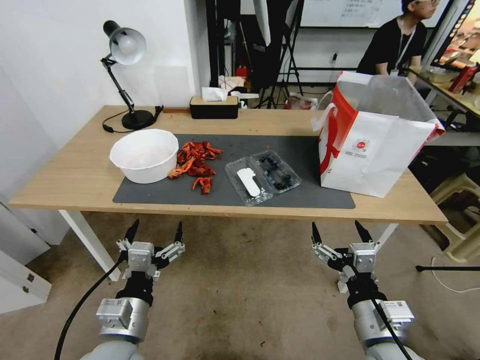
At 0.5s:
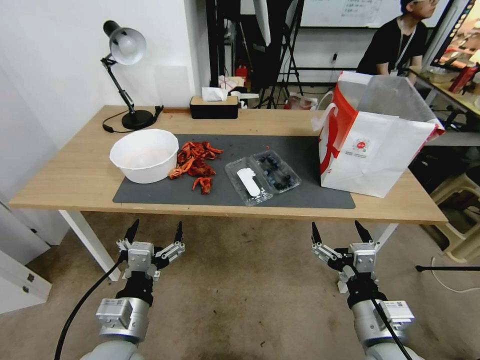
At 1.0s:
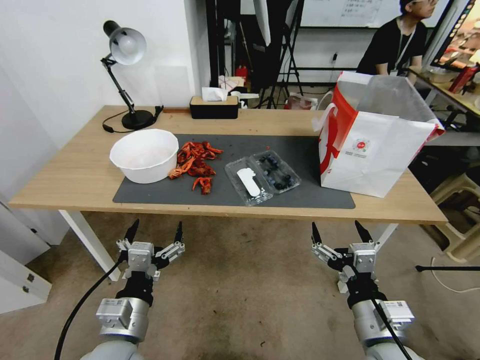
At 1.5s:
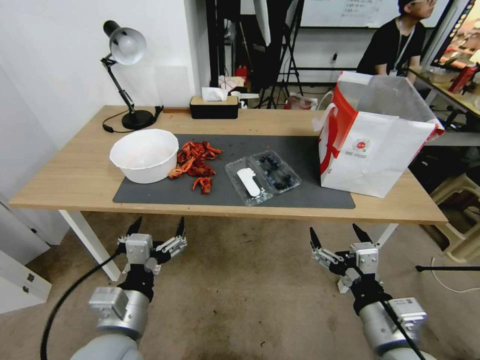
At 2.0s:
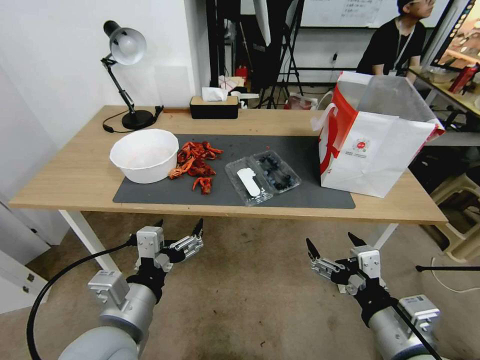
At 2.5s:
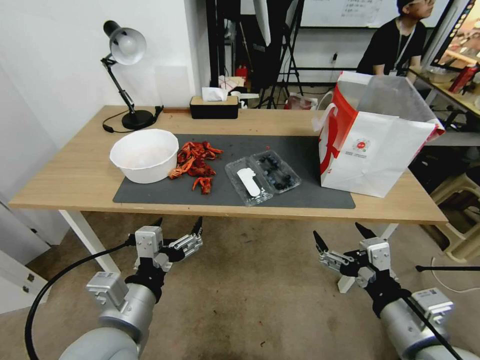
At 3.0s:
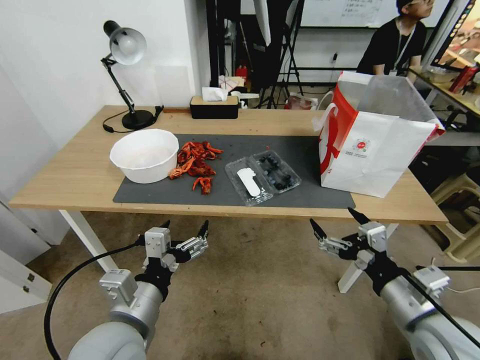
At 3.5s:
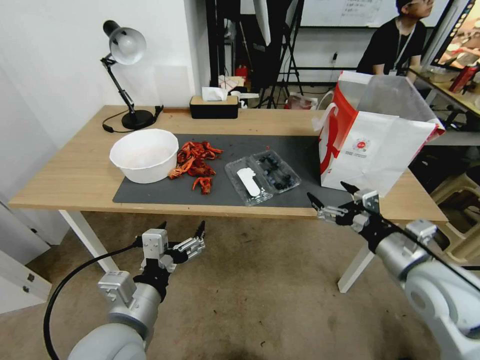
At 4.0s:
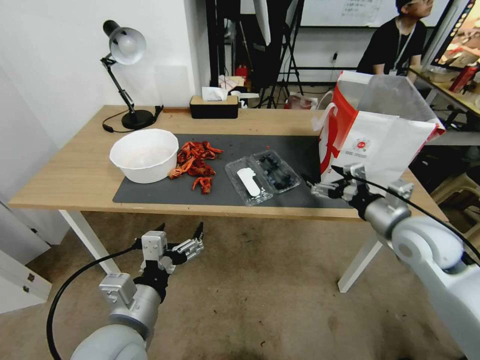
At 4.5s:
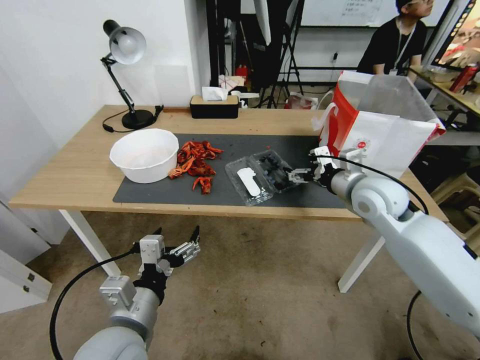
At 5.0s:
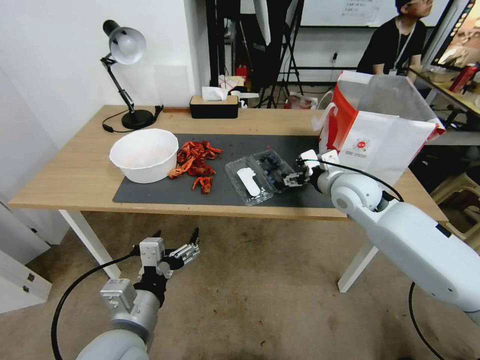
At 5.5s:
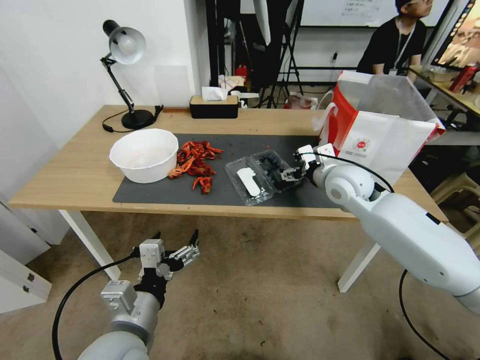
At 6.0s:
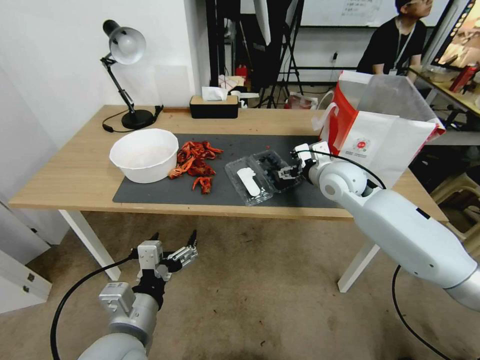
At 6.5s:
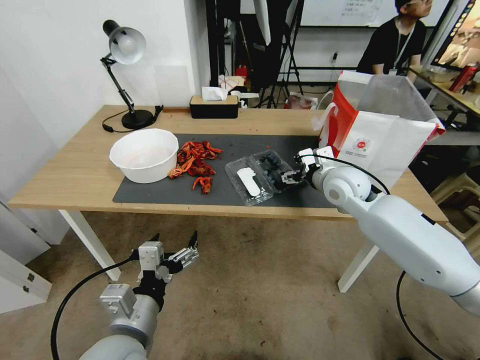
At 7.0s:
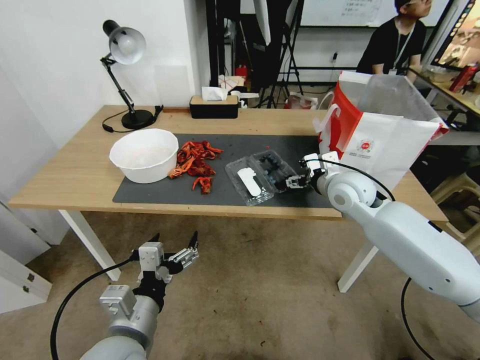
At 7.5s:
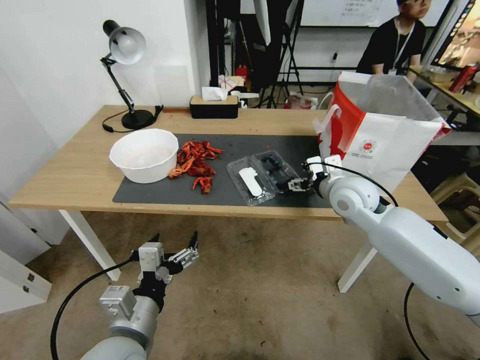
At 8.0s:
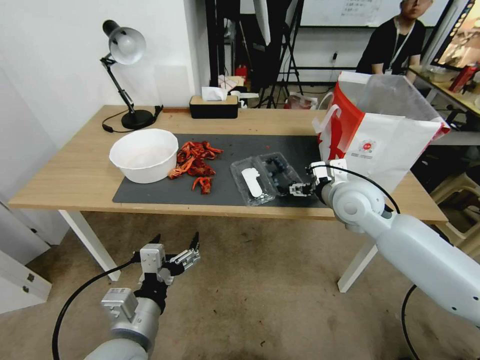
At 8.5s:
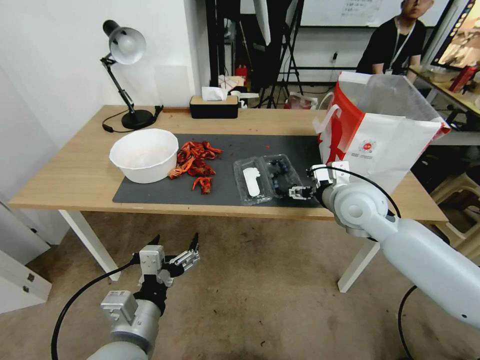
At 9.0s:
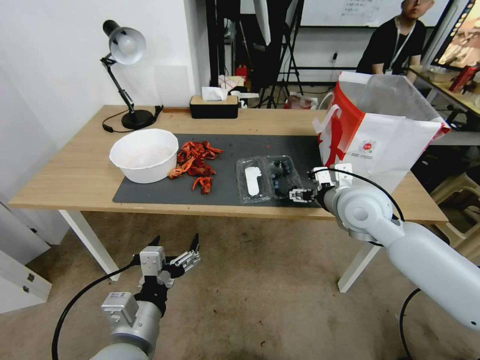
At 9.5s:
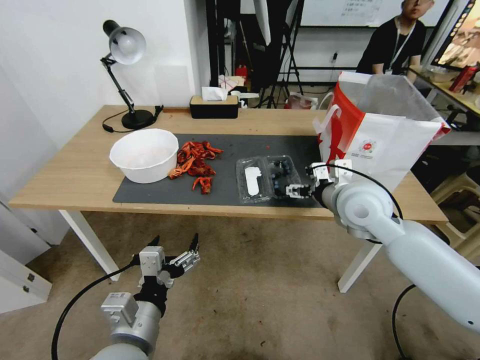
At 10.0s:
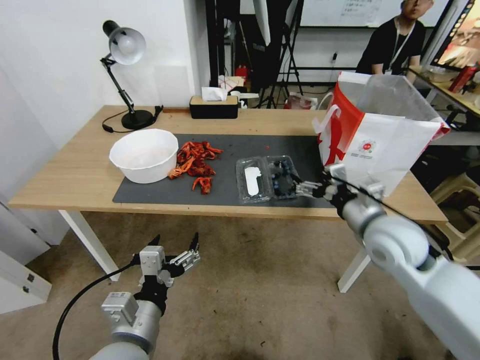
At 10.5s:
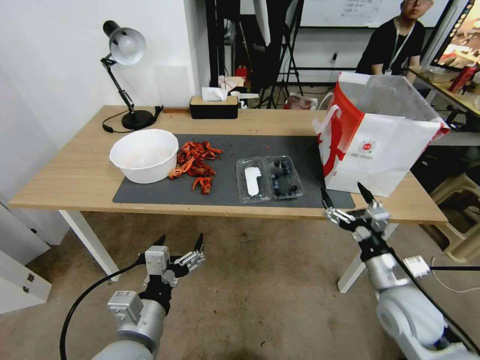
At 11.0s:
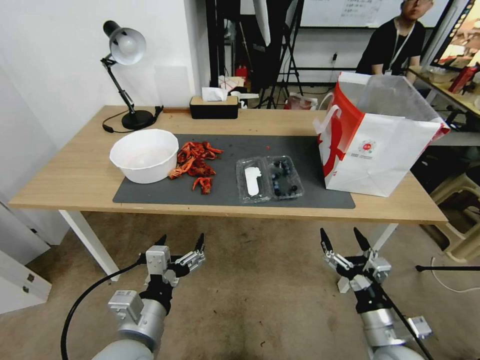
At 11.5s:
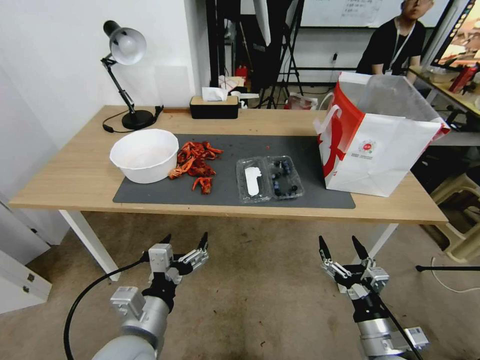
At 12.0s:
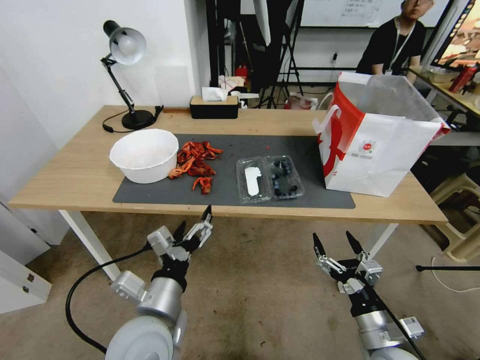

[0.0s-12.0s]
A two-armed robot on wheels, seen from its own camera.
Task of the whole recording: Close the takeout container lid, then place the container into the takeout bag.
2.0s to 4.0s: The right gripper goes about 25 cm forward and to the right.
4.0s to 6.0s: The right gripper heads forward and to the left, covering roughly 15 cm.
6.0s to 8.0s: The right gripper shifts roughly 5 cm backward.
8.0s to 10.0s: The right gripper travels backward by some 10 cm.
10.0s to 12.0s: The right gripper goes about 25 cm backward and downward.

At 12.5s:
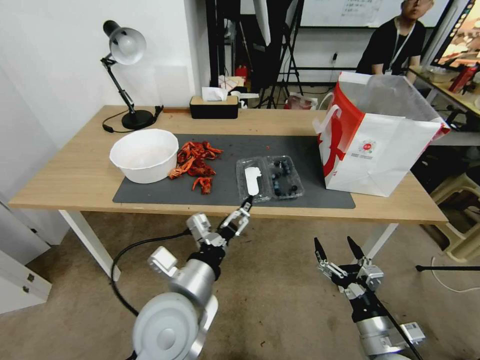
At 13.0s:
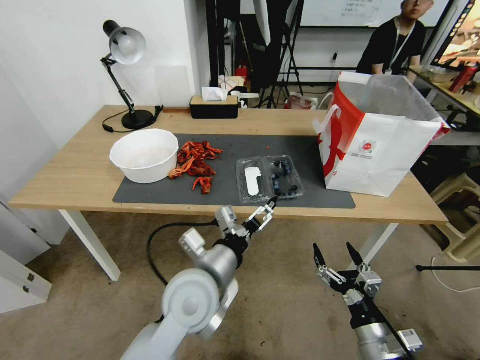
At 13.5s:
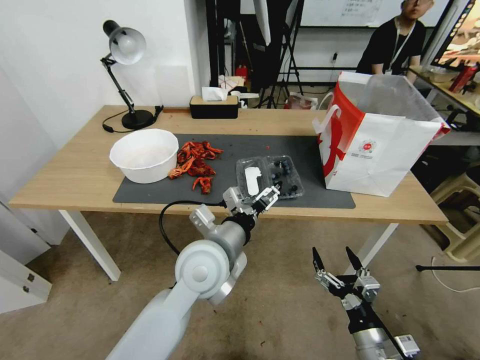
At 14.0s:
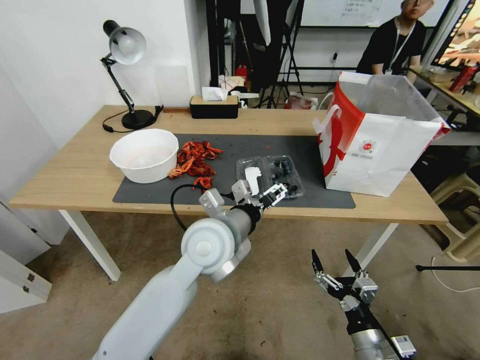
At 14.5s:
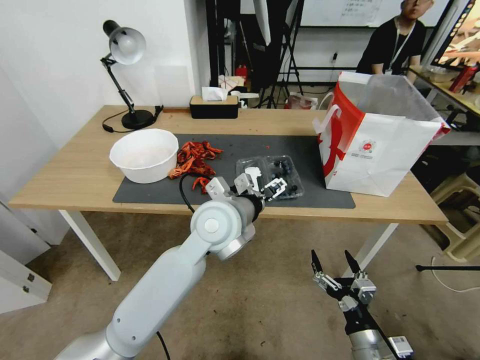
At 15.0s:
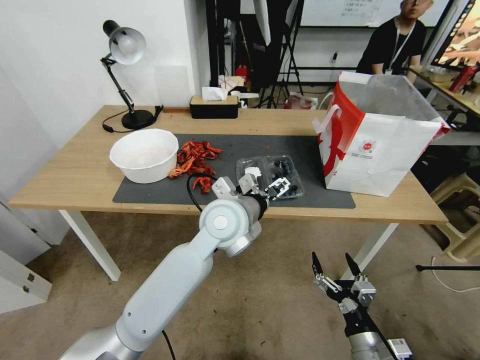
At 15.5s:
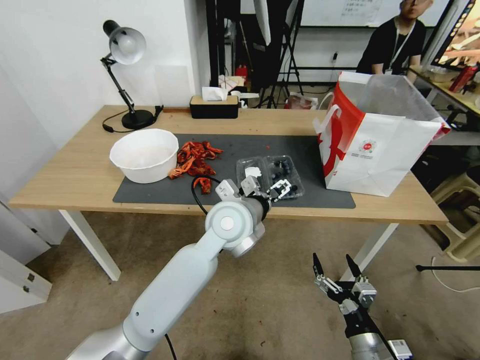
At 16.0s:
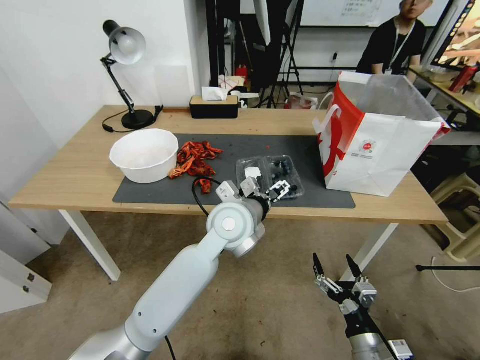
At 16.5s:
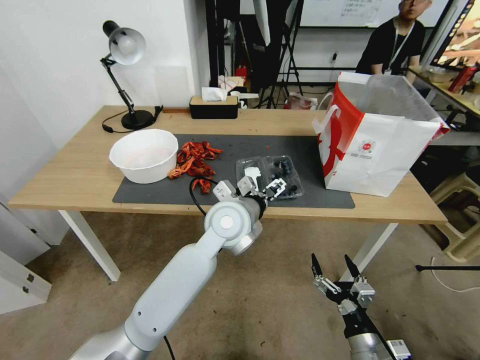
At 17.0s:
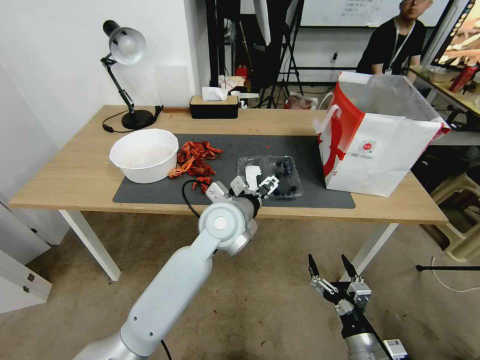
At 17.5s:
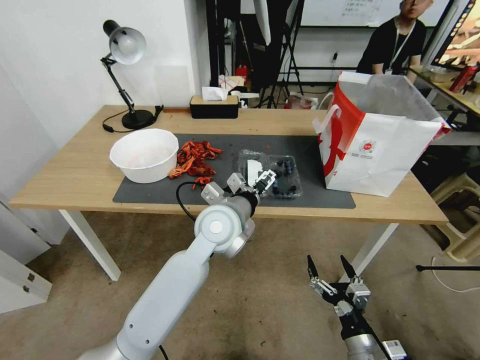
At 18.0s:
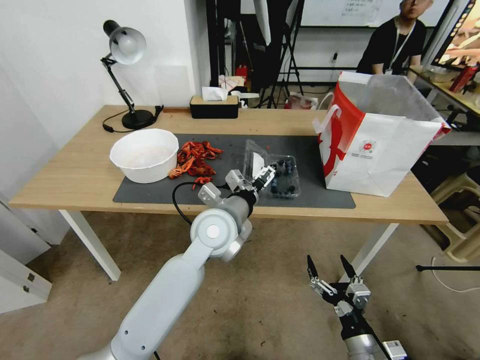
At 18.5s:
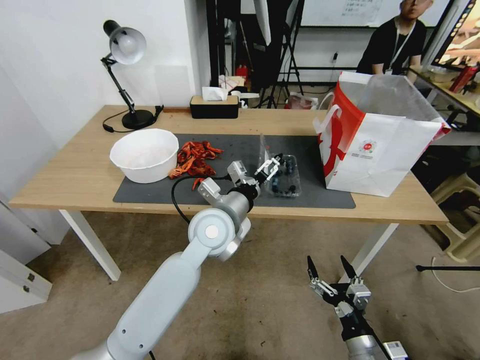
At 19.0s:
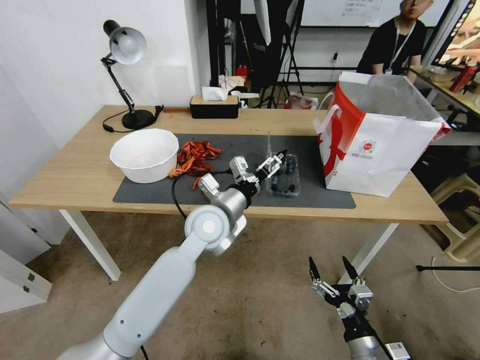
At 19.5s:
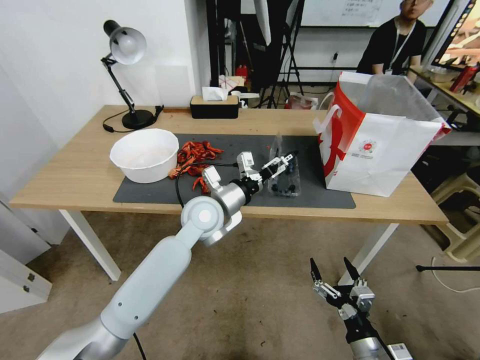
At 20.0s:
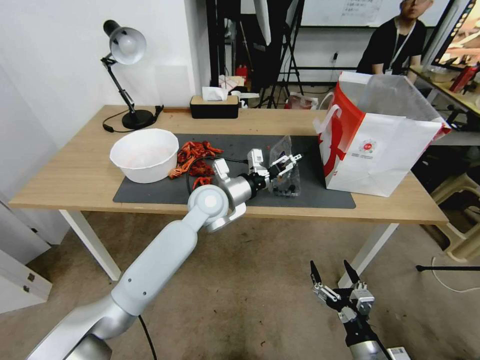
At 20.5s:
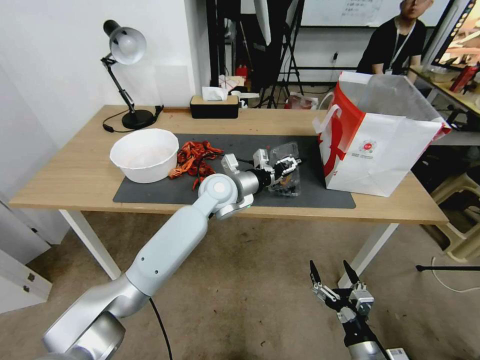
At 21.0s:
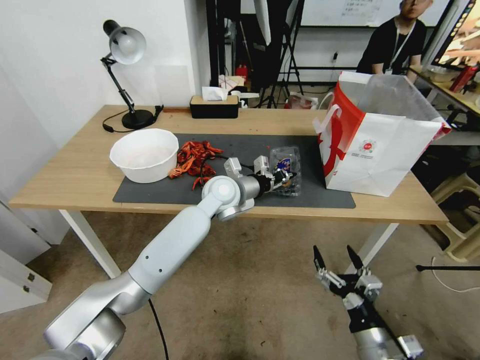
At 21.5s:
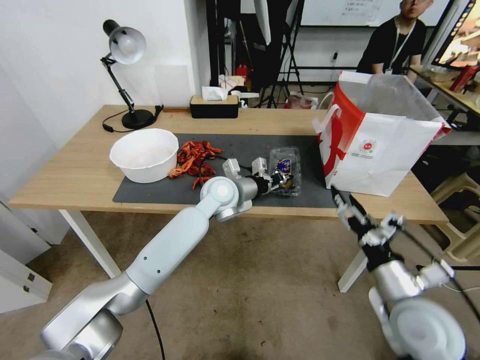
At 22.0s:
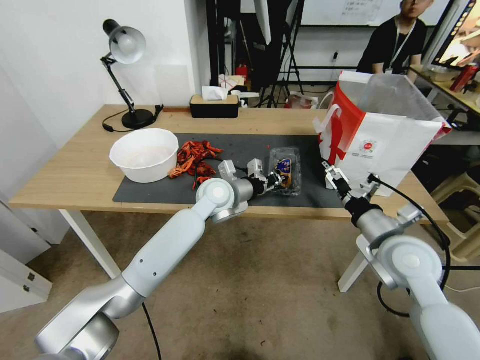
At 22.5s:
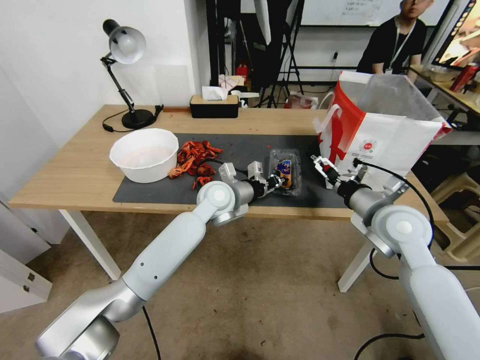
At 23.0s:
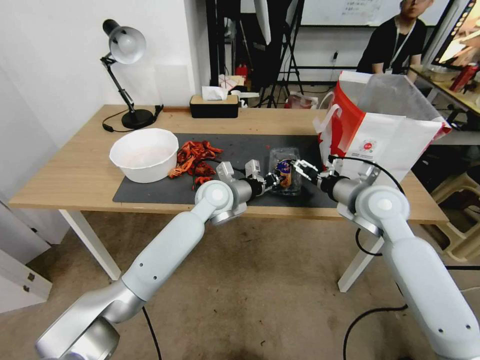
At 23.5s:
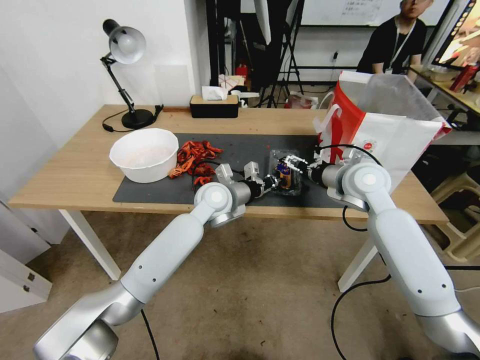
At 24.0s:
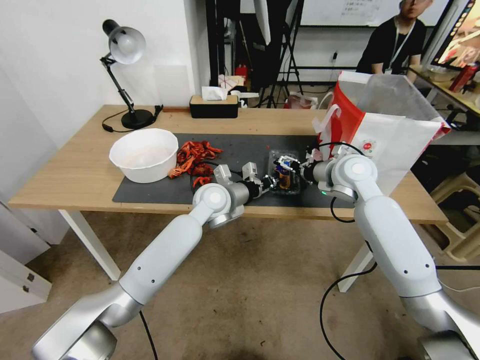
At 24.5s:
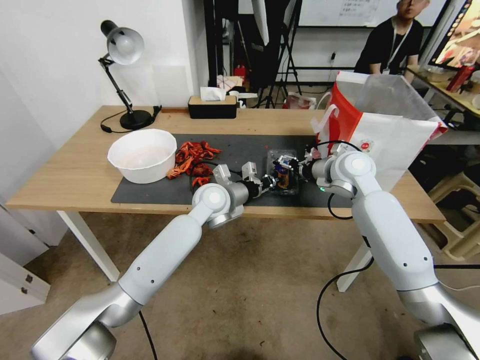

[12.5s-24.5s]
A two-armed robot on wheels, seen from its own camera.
Task of the whole recording: Close the takeout container lid, then place the container into the takeout bag.
12.5s to 14.5s: The left gripper moves forward and to the right, some 15 cm.
14.5s to 16.5s: The grippers move only a little.
18.5s to 20.5s: The left gripper goes some 10 cm forward, and closes.
20.5s to 22.5s: The left gripper closes up. Meanwhile the right gripper moves forward and upward, approximately 35 cm.
22.5s to 24.5s: The right gripper is displaced forward by approximately 15 cm.

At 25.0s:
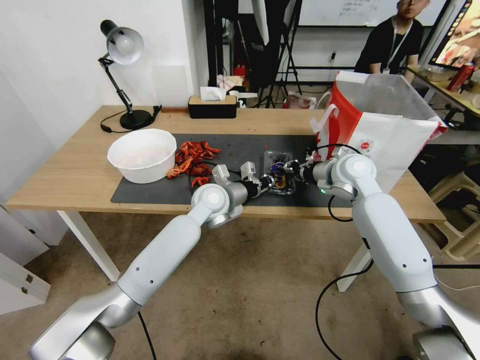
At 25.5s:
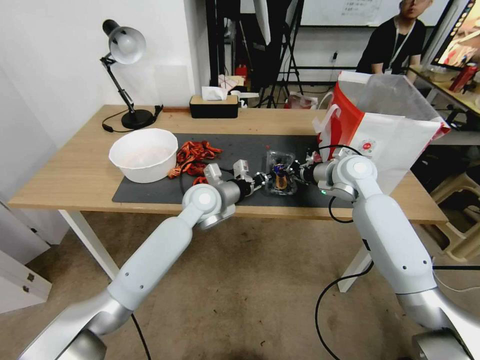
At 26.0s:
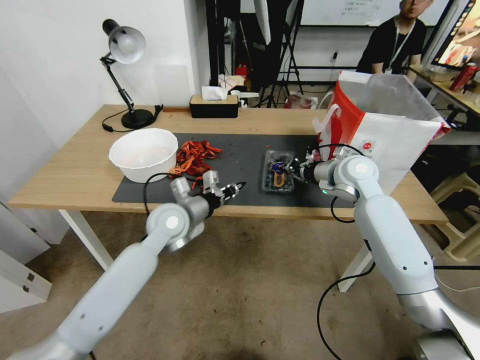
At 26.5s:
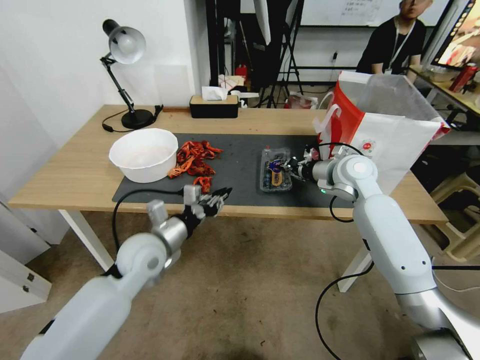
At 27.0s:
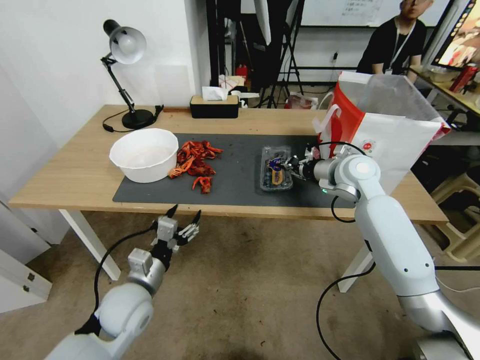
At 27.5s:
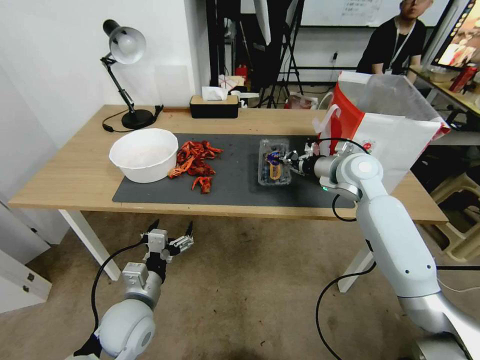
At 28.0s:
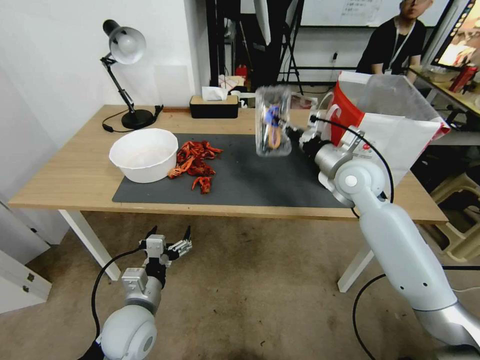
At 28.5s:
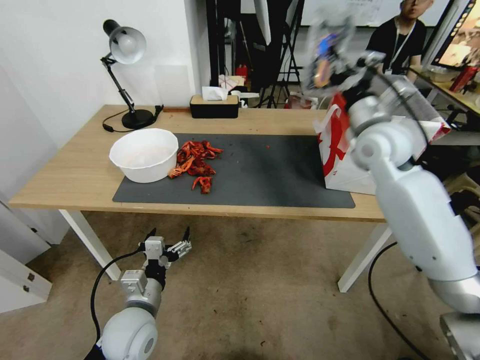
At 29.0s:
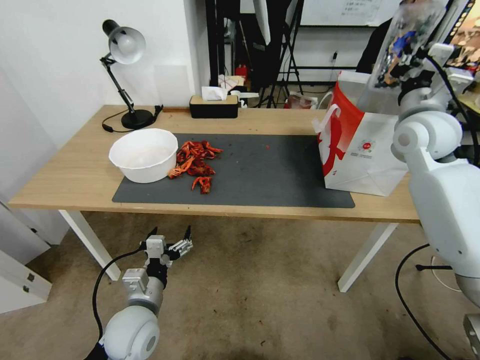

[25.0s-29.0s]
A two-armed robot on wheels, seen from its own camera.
Task of the whole recording: Close the takeout container lid, then place the container into the takeout bag.
25.0s to 27.0s: The left gripper moves backward and to the left, some 25 cm, and opens up.
27.0s to 29.0s: The right gripper is displaced upward and to the right by roughly 15 cm.
